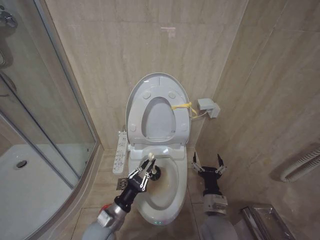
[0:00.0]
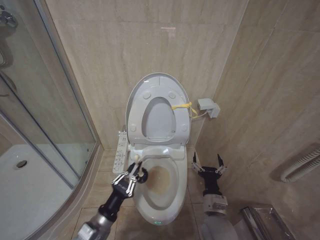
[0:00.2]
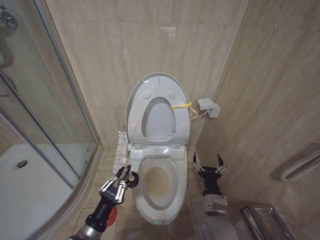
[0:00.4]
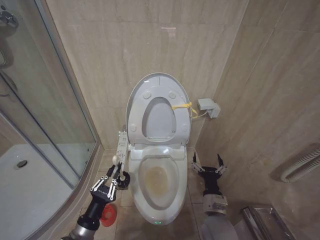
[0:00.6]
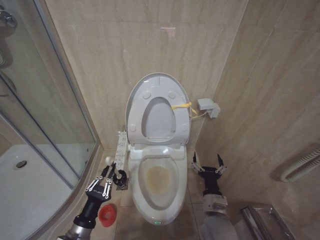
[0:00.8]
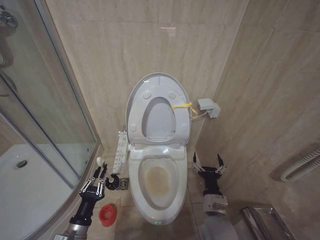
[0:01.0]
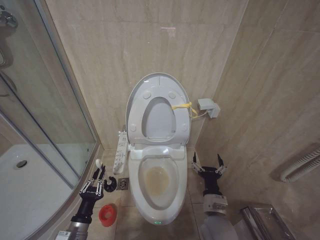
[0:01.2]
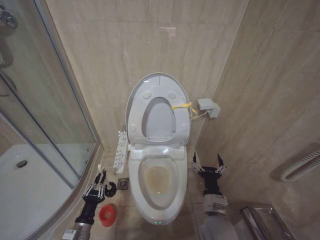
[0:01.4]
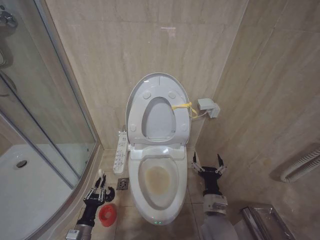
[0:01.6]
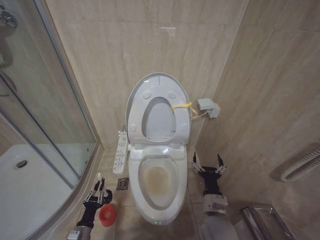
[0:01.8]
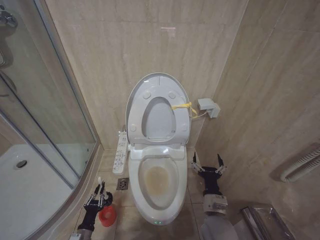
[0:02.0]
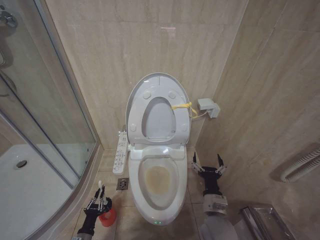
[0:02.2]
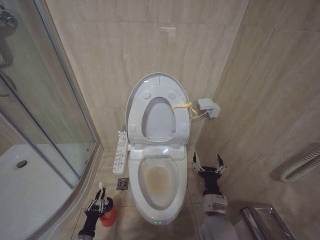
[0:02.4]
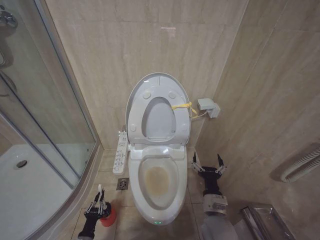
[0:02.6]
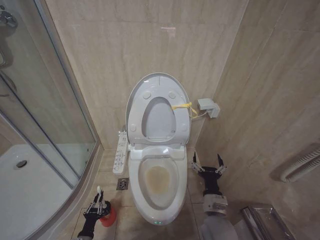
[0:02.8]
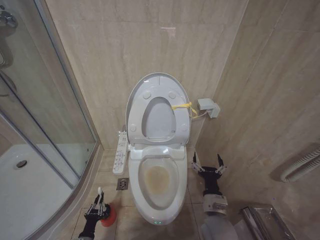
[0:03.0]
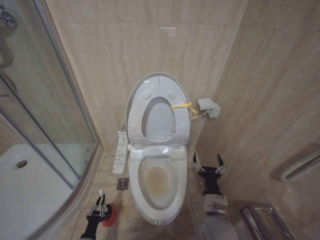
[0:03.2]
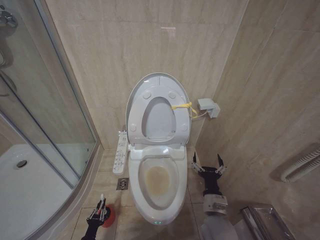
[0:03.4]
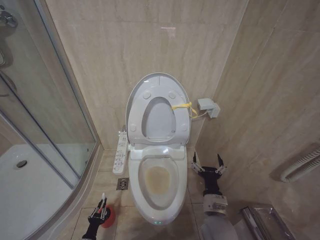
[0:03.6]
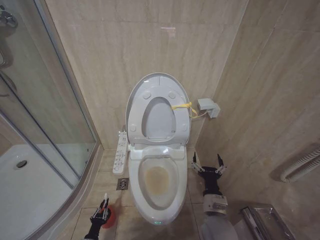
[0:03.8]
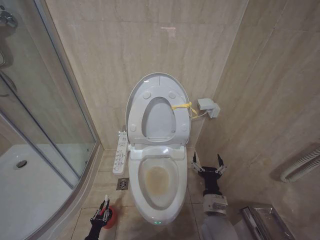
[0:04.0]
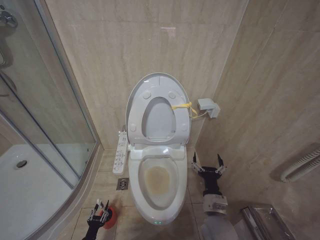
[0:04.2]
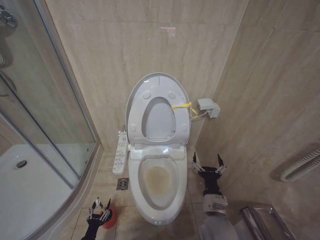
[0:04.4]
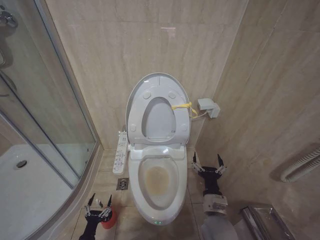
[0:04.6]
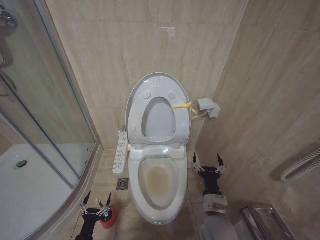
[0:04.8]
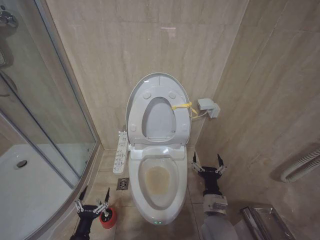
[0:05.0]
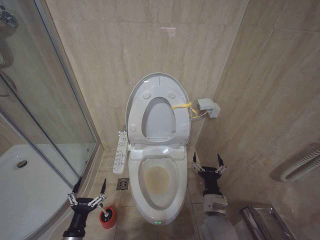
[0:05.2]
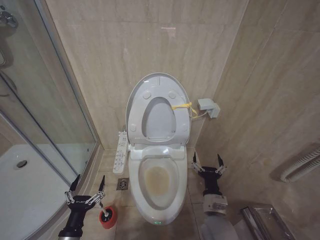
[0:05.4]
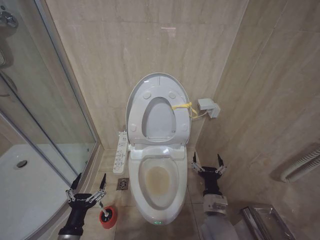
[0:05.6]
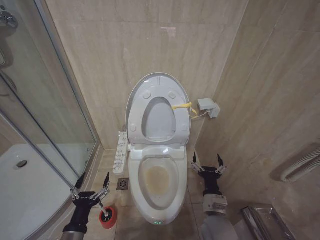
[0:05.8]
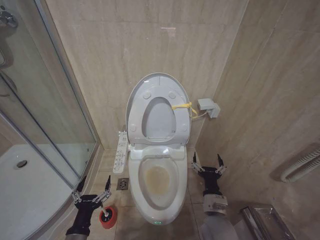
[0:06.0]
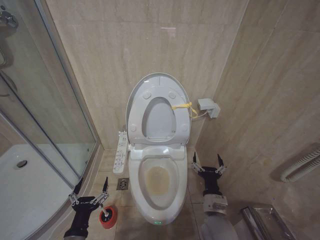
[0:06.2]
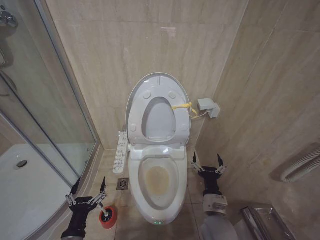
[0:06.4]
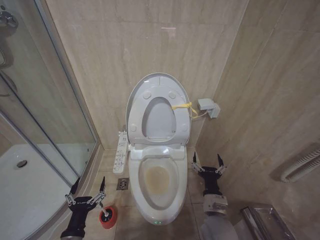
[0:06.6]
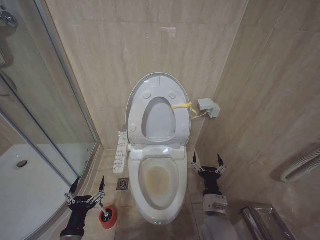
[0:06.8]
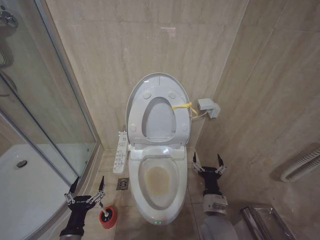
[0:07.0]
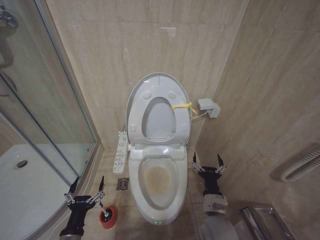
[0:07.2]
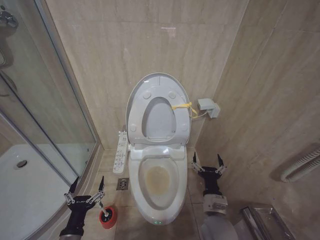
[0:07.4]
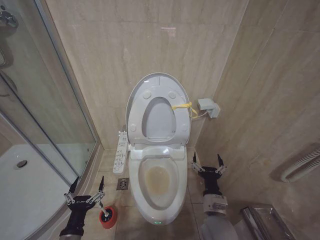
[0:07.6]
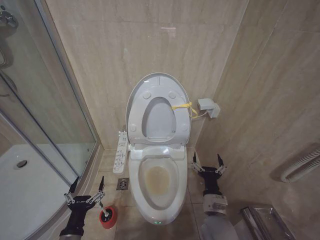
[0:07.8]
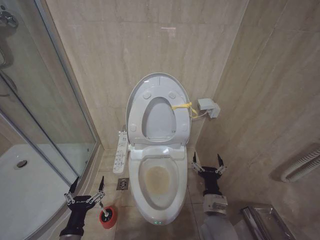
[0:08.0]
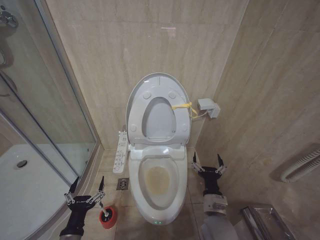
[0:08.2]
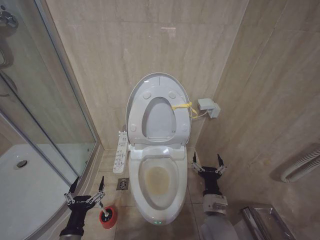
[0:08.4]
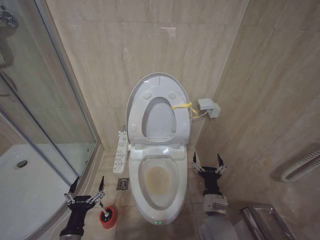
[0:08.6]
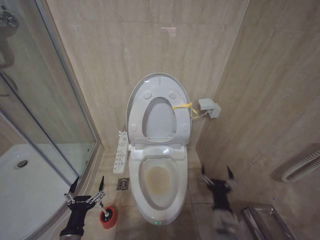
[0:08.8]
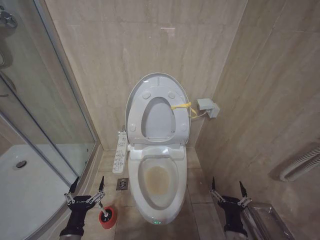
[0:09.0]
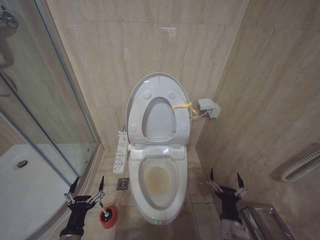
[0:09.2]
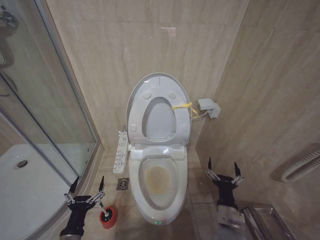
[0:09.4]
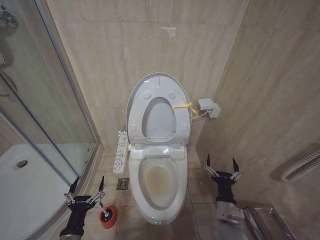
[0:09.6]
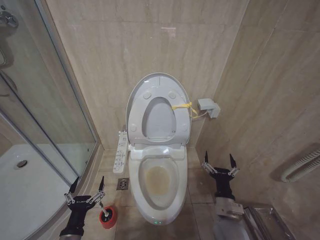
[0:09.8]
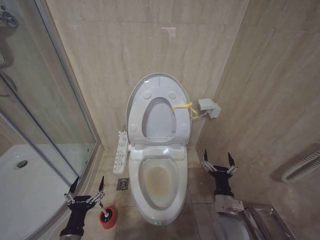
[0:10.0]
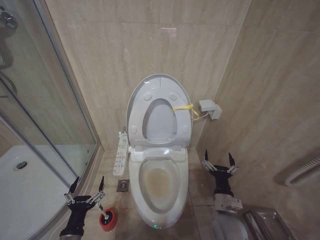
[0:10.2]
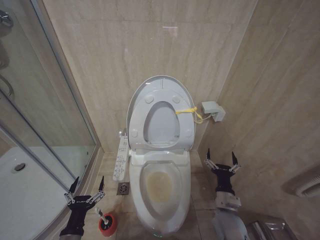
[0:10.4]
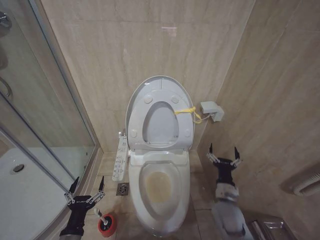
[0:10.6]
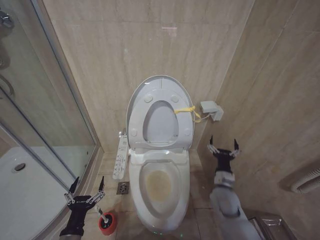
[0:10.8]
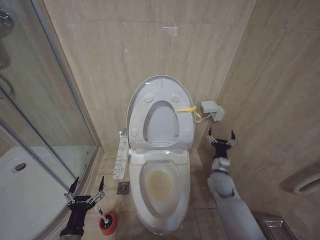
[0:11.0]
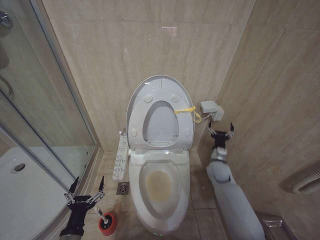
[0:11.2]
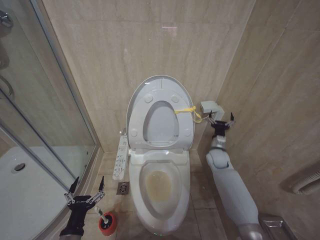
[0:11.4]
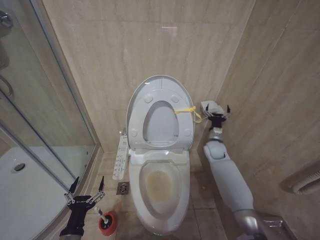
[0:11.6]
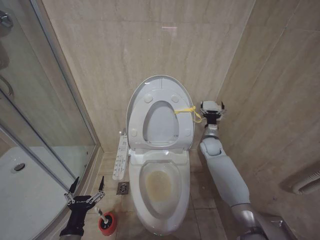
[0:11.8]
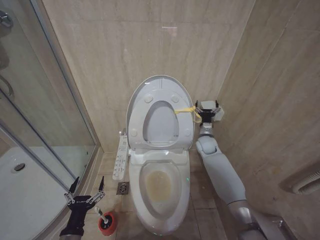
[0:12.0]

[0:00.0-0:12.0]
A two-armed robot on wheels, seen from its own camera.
Task of the whole recording: Open the toilet lid, clean the toilet bowl with a toilet brush, close the toilet lid, and flush.
0:00.0 to 0:01.6: The left gripper is displaced to the left and downward by some 15 cm.
0:01.6 to 0:03.0: The left gripper shifts some 15 cm downward.
0:03.0 to 0:04.4: The left gripper opens.
0:04.4 to 0:06.0: The left gripper heads upward, covering some 30 cm, and opens.
0:06.0 to 0:07.6: The grippers stay close to where they were, moving slightly.
0:07.6 to 0:09.0: The right gripper moves backward, roughly 10 cm.
0:09.0 to 0:10.4: The right gripper moves forward, approximately 10 cm.
0:10.4 to 0:12.0: The right gripper shifts some 30 cm forward.

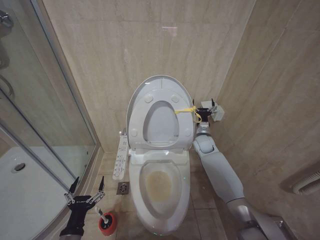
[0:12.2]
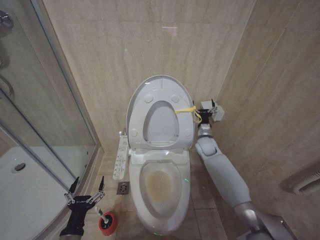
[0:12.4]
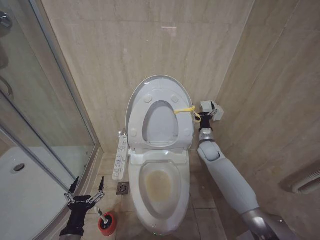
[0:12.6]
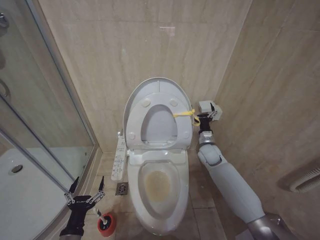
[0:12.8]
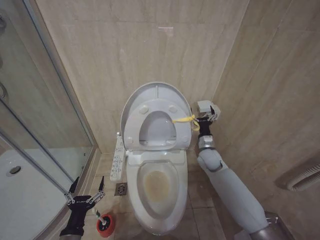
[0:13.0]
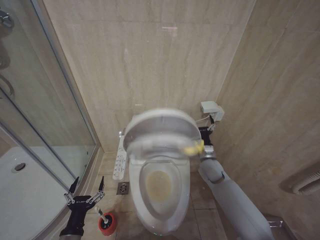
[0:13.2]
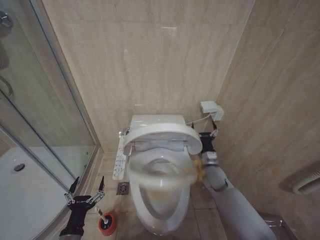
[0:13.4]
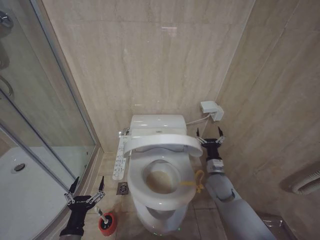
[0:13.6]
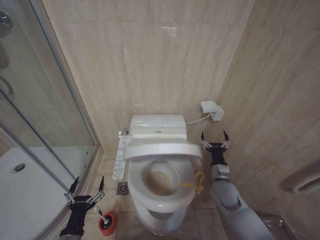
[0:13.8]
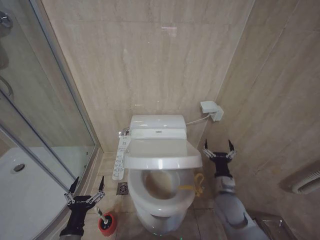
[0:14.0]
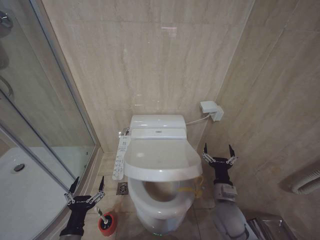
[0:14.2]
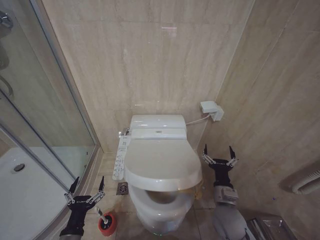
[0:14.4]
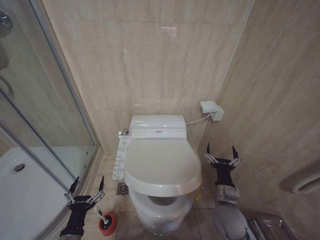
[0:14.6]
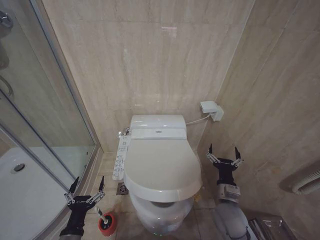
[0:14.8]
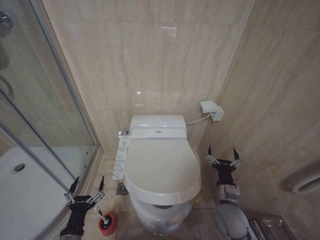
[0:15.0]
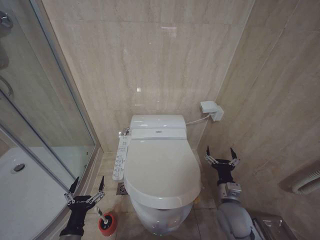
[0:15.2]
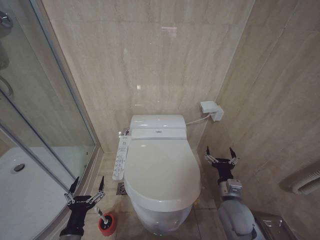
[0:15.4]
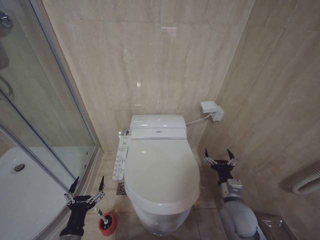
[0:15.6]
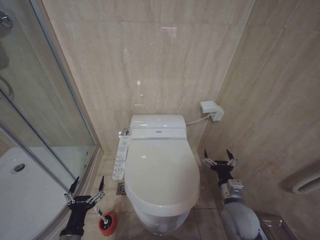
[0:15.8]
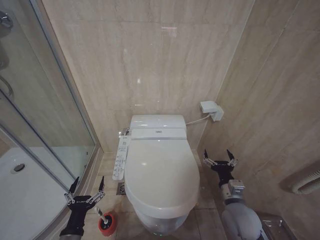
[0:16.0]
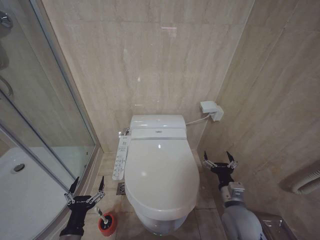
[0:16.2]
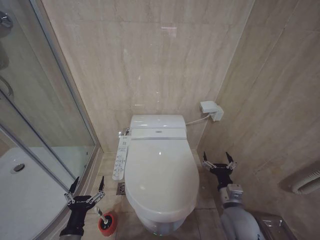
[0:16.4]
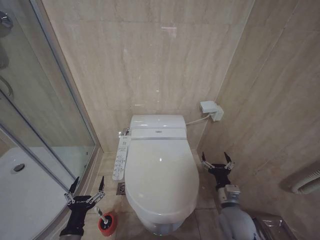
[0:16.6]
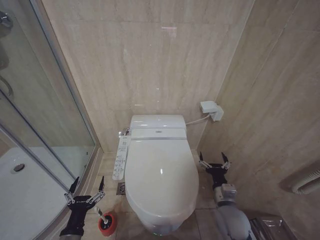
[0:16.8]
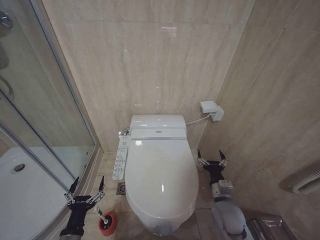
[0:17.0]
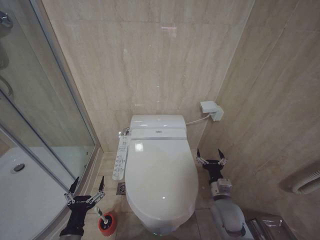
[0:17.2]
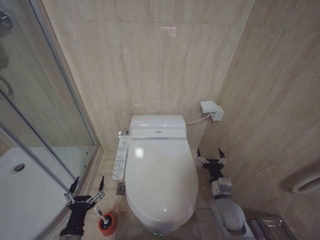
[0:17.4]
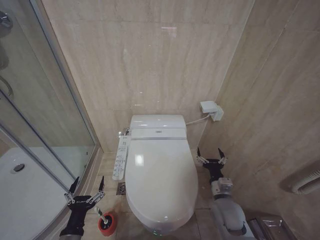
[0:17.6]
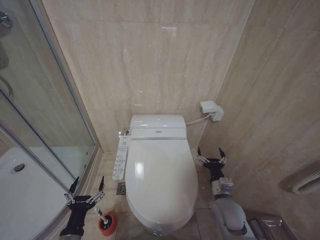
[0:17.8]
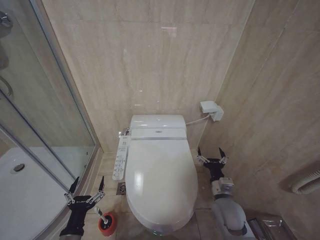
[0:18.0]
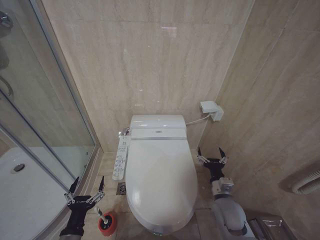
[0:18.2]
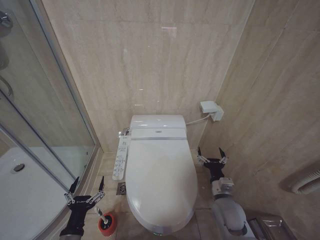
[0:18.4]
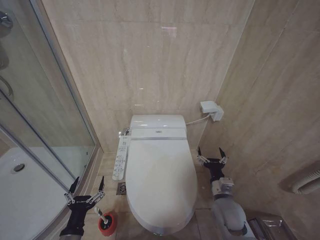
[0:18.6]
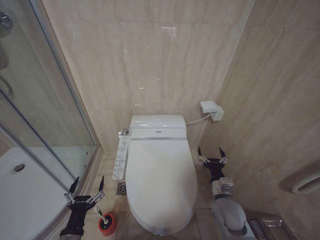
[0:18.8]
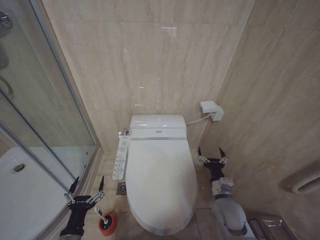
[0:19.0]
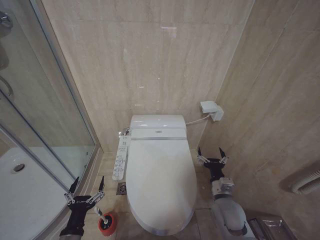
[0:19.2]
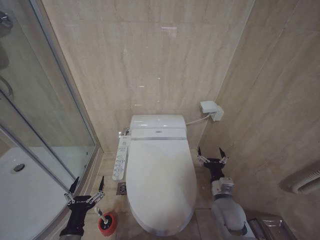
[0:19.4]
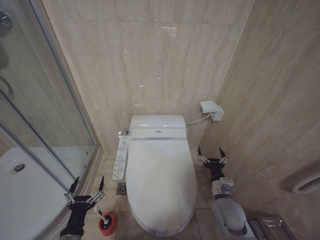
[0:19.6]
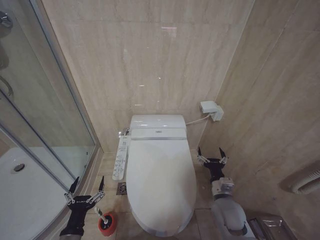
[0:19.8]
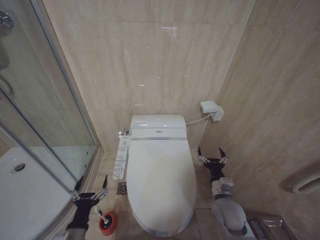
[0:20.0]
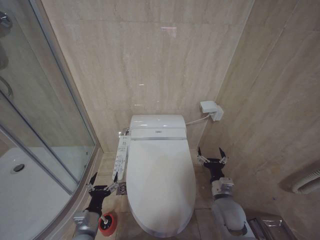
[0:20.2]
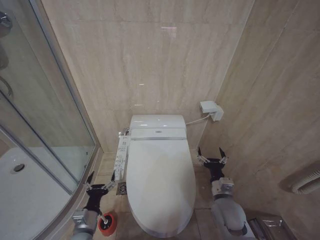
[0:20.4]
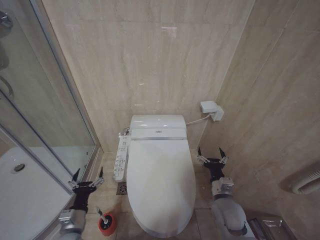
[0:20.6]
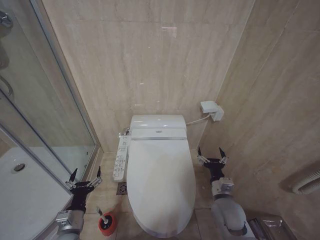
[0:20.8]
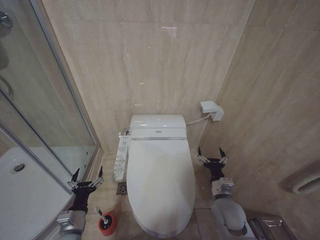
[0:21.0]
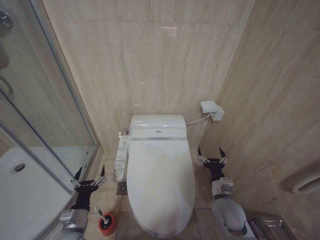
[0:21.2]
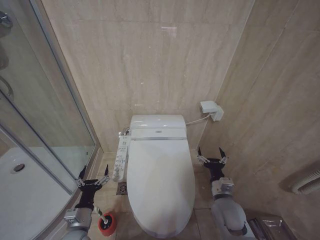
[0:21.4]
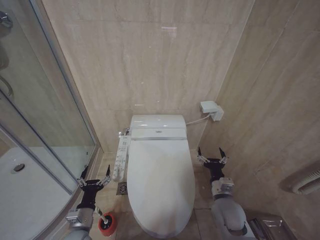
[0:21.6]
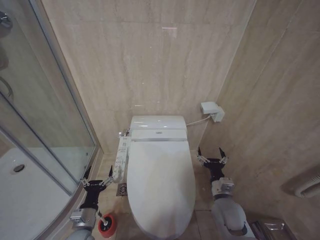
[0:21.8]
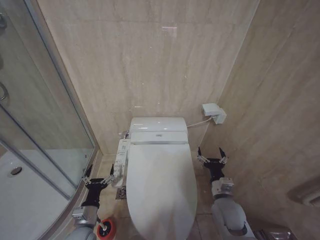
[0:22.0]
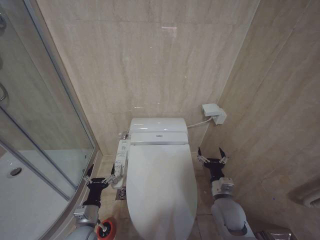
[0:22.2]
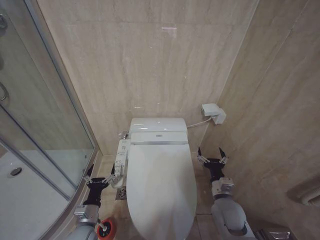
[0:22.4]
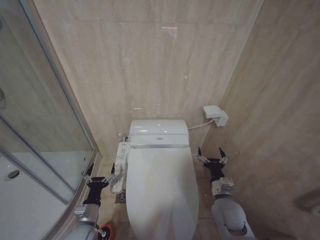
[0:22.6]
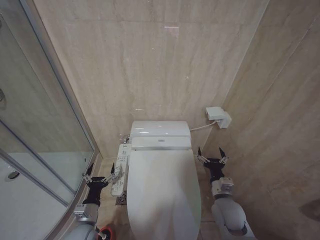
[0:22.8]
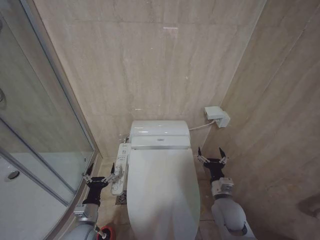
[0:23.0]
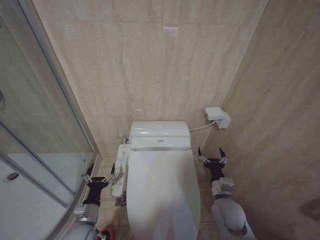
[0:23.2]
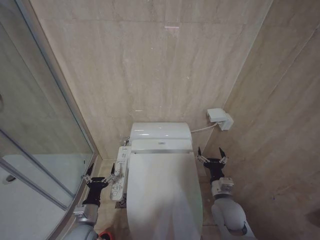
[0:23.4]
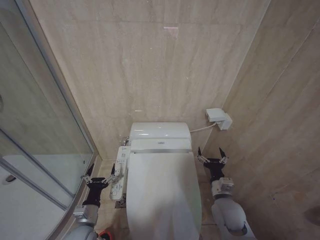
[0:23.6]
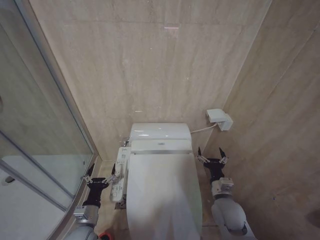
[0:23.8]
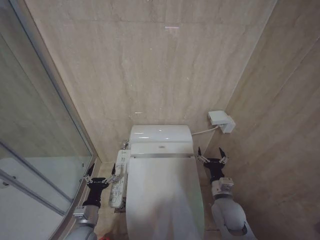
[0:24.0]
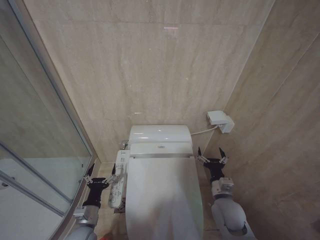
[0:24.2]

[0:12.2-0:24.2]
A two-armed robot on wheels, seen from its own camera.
Task of the whole recording: Open the toilet lid, clean the toilet bowl with a toilet brush, close the toilet lid, and flush.
0:12.2 to 0:13.8: The right gripper goes approximately 20 cm backward.
0:13.8 to 0:15.2: The right gripper goes roughly 10 cm backward.
0:15.2 to 0:18.2: The grippers move only a little.
0:18.2 to 0:19.8: Both grippers stay put.
0:19.8 to 0:21.2: The left gripper travels forward by some 5 cm.
0:21.2 to 0:22.6: The grippers make only small movements.
0:22.6 to 0:24.2: The two grippers keep their place.
